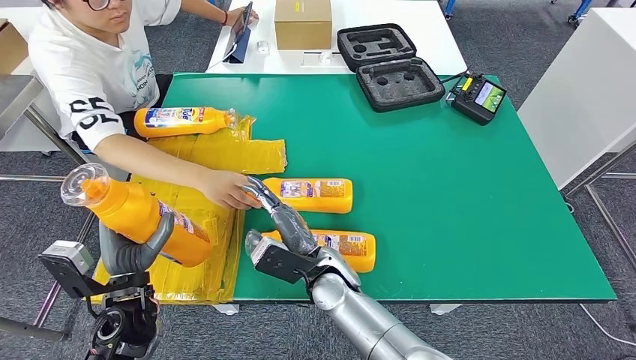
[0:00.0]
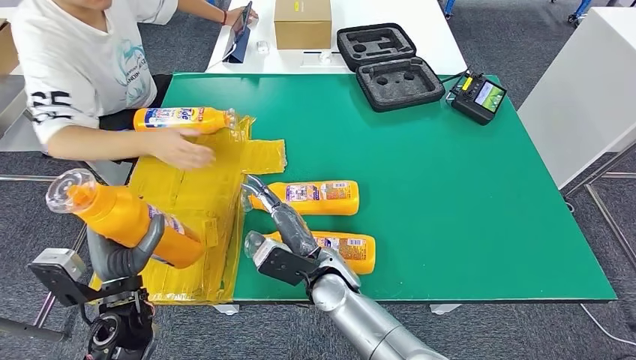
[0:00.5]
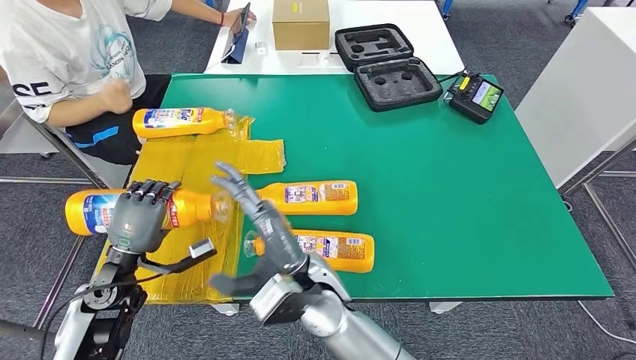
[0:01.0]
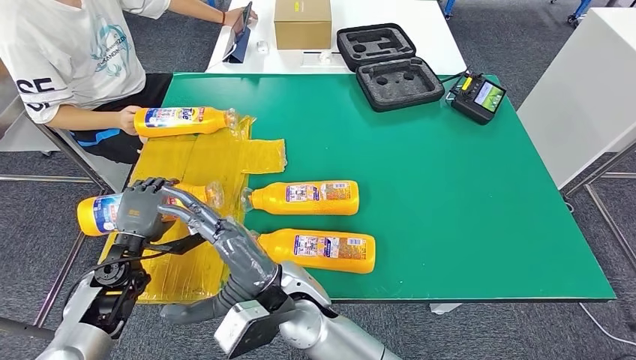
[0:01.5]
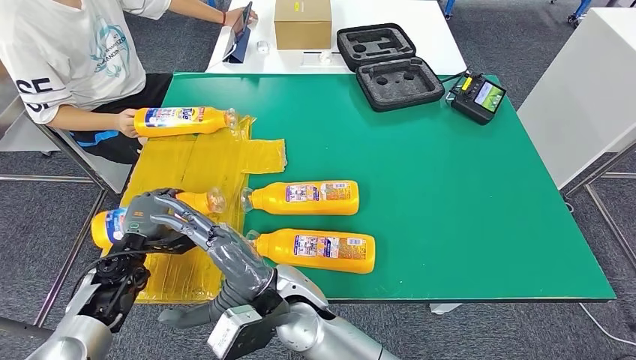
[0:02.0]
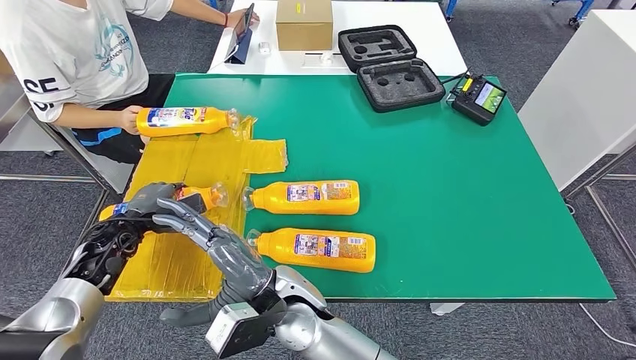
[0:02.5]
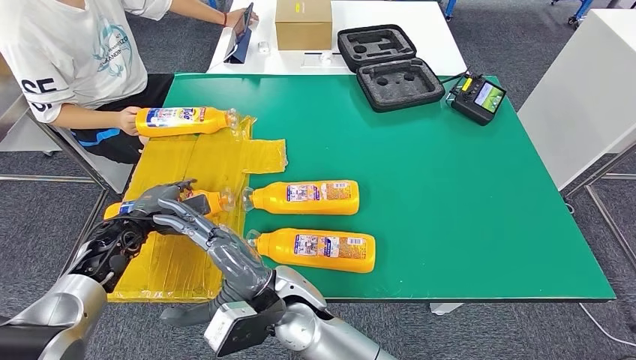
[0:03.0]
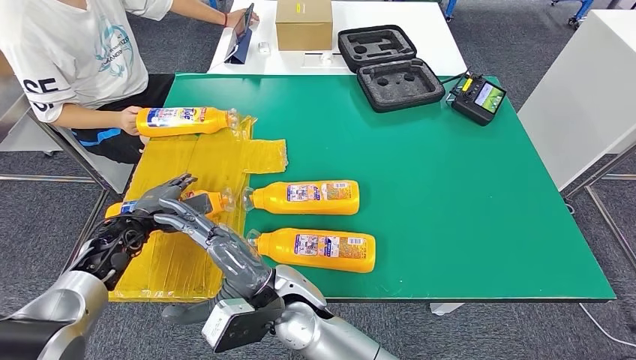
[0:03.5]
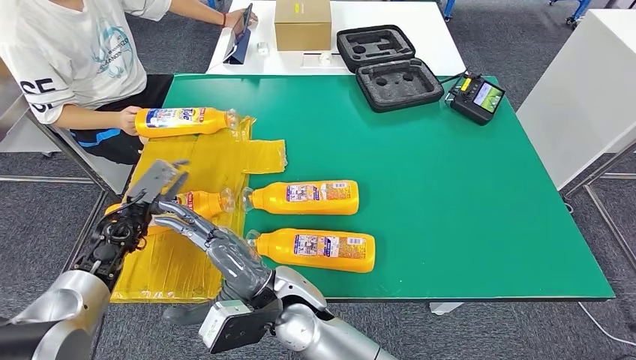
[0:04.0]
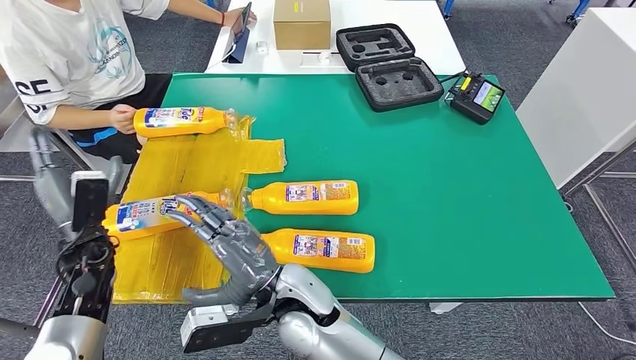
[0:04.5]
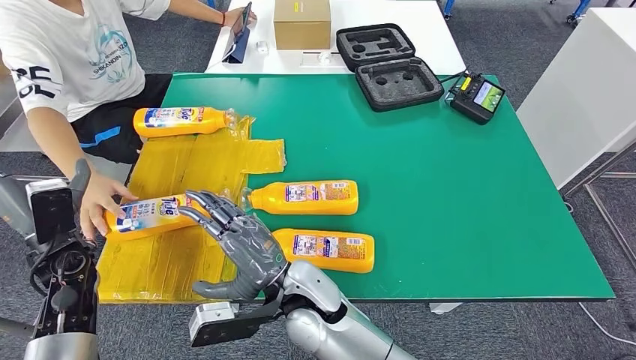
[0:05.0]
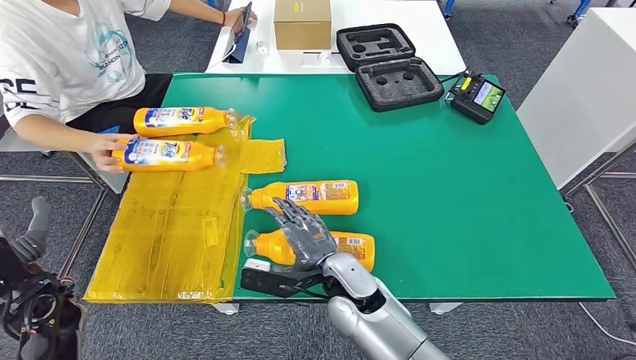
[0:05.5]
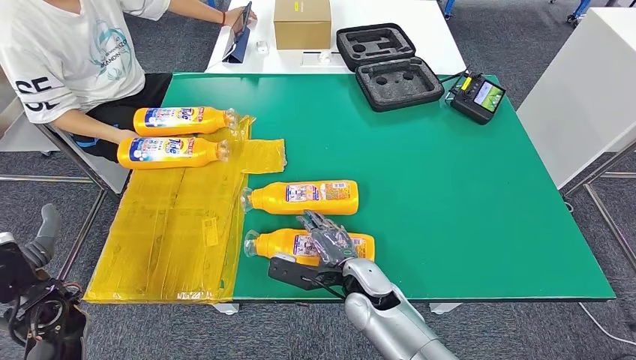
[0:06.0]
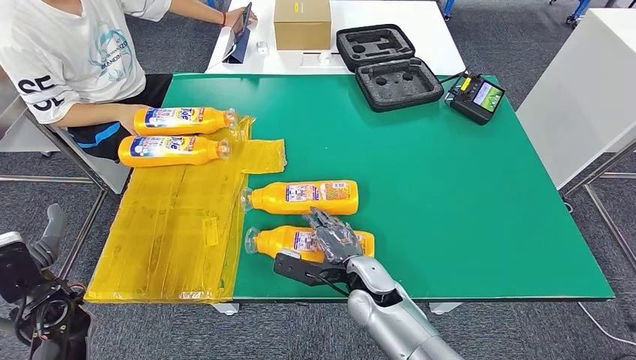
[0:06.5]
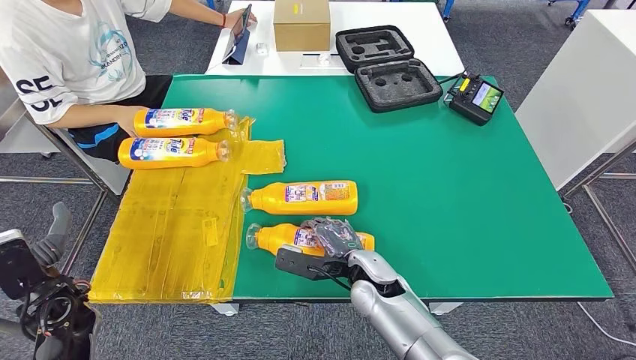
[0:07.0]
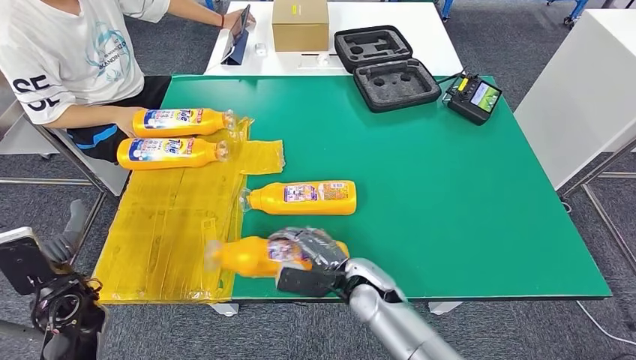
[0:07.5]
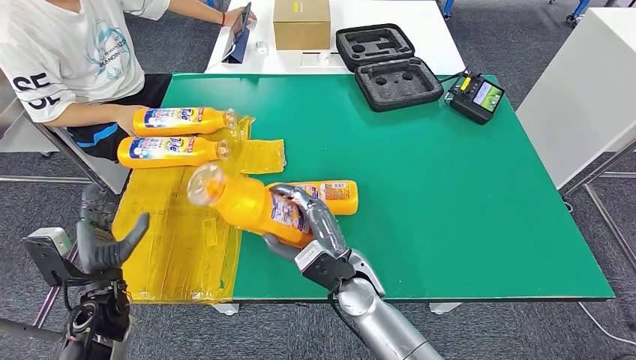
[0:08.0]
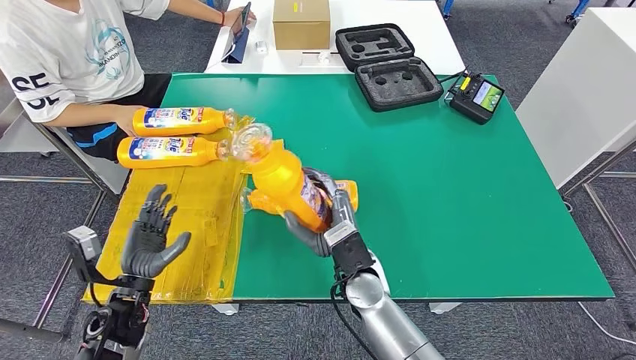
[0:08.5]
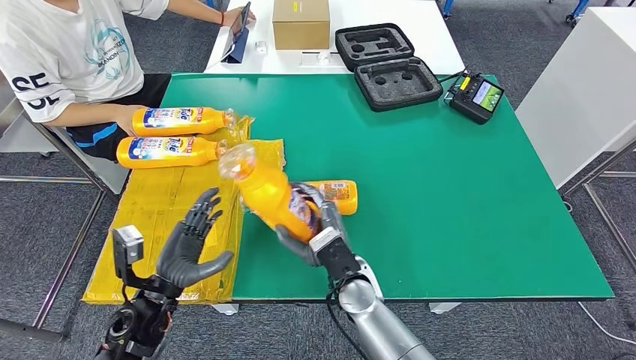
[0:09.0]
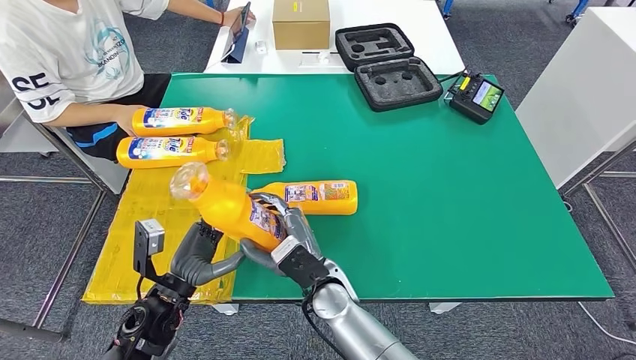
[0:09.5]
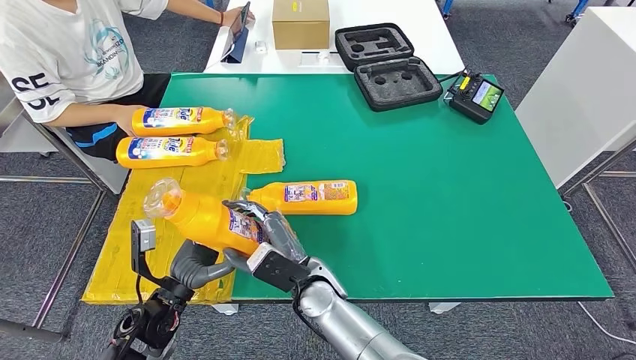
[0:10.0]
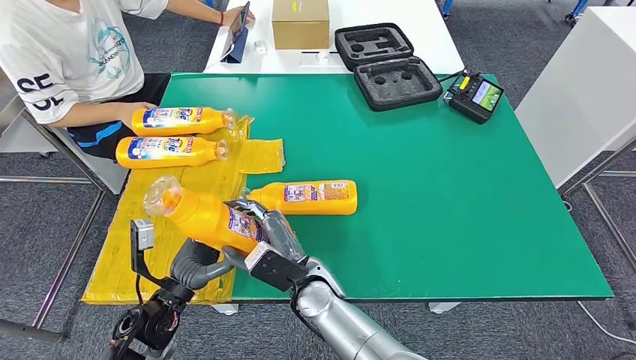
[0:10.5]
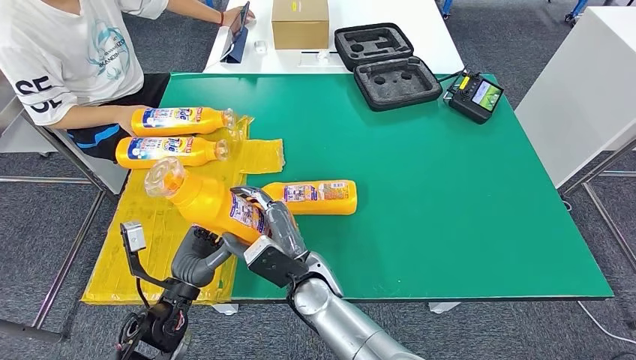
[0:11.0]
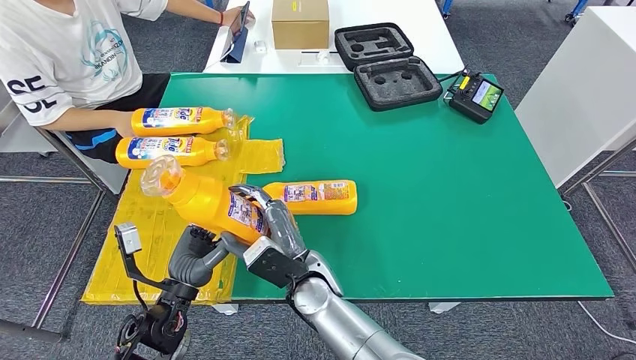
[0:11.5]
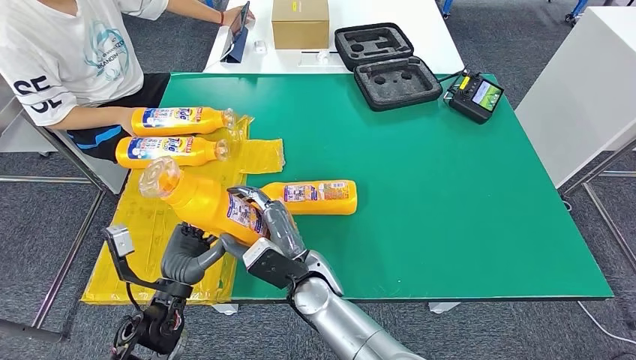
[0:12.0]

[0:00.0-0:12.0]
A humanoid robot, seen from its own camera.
Step, 0:00.0 to 0:04.0: Flip the fast-moving consumer goods bottle to the front side.
Step, 0:07.5 to 0:11.0: Pick up the fast-moving consumer goods bottle from the table.
0:02.0 to 0:04.0: The left hand heads forward, covering roughly 5 cm.
0:06.0 to 0:08.0: The left hand shifts roughly 5 cm to the right.
0:08.0 to 0:10.0: The right hand shifts roughly 10 cm to the left, while the left hand moves to the right, some 10 cm.
0:10.0 to 0:12.0: There are only small adjustments of the hands.

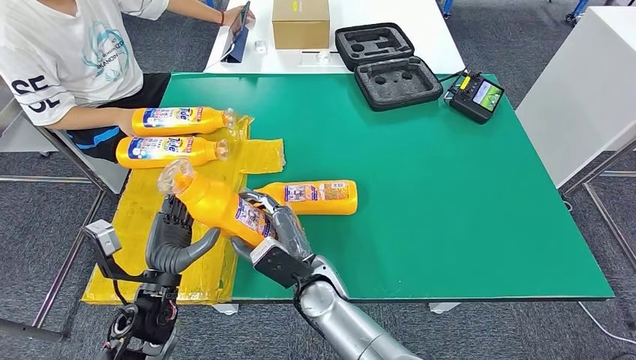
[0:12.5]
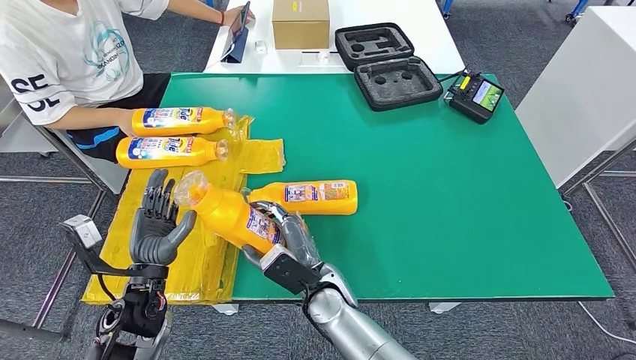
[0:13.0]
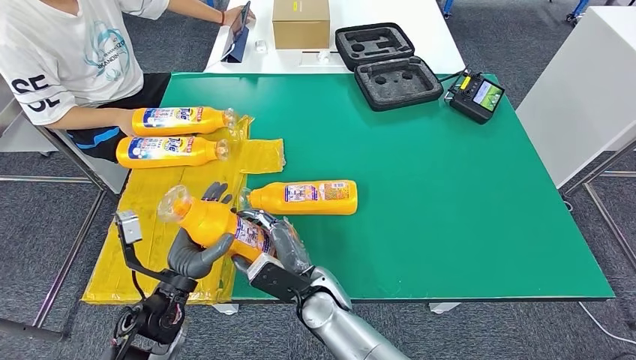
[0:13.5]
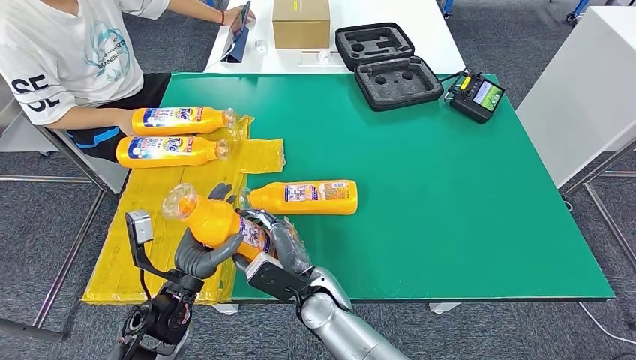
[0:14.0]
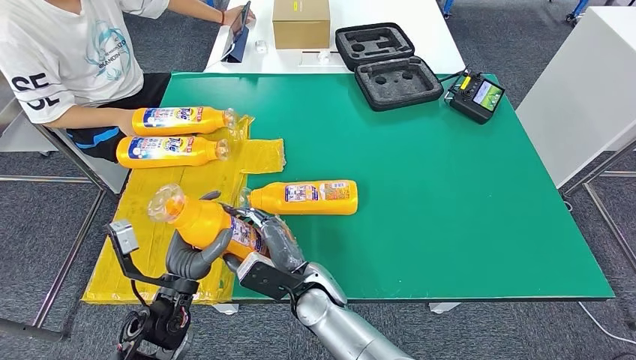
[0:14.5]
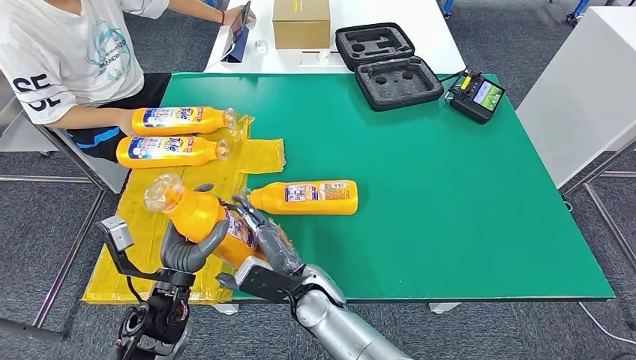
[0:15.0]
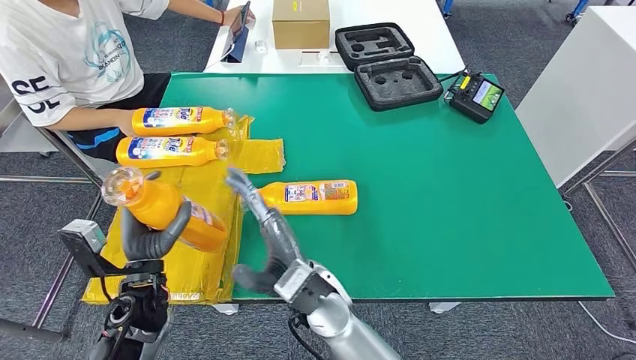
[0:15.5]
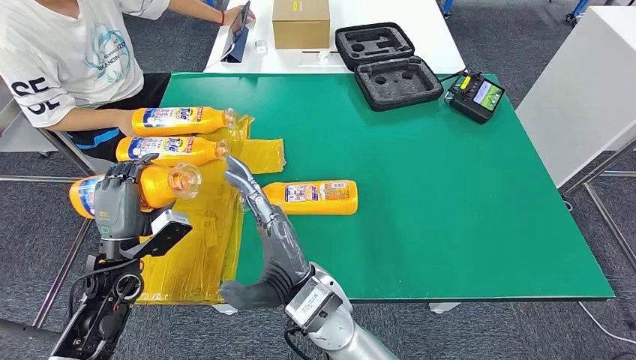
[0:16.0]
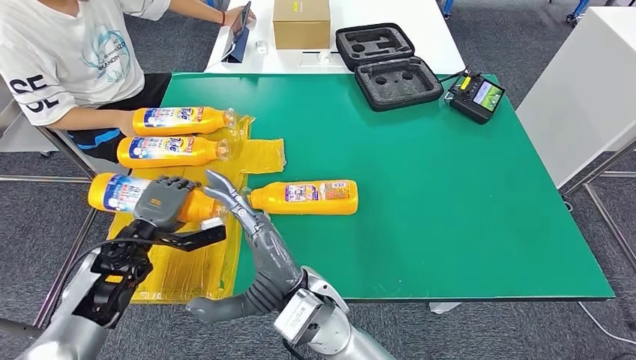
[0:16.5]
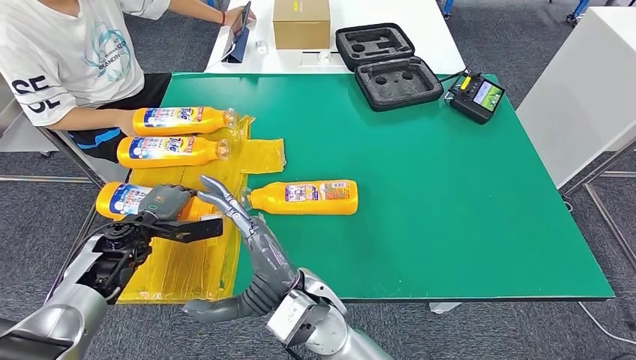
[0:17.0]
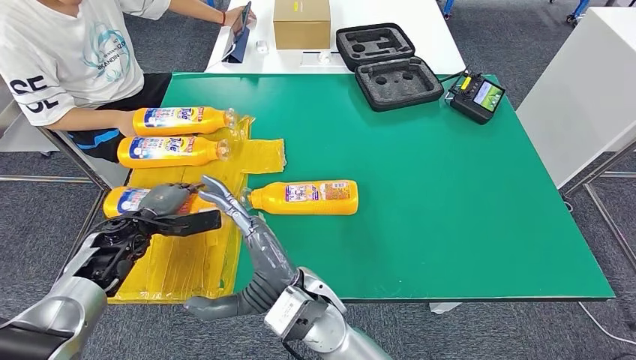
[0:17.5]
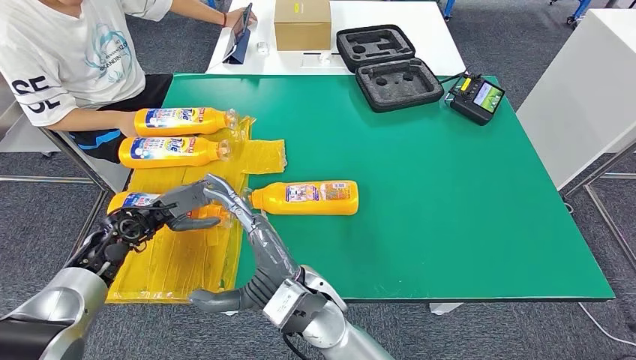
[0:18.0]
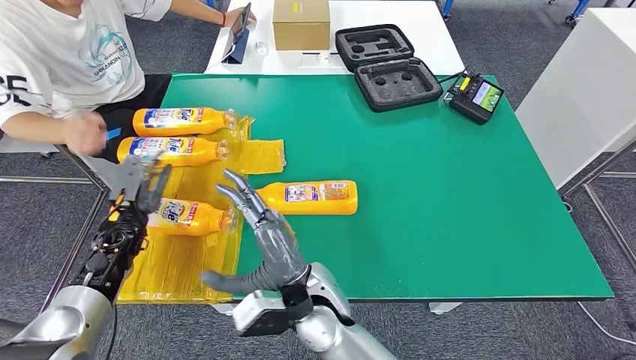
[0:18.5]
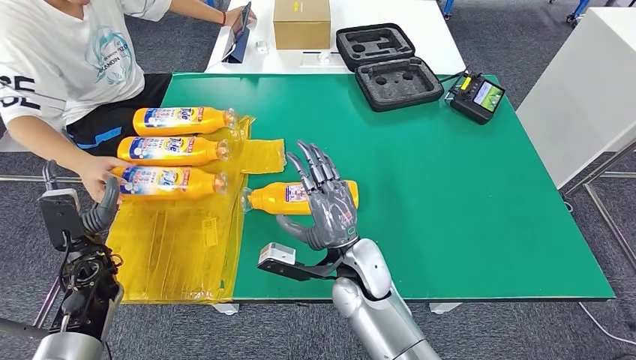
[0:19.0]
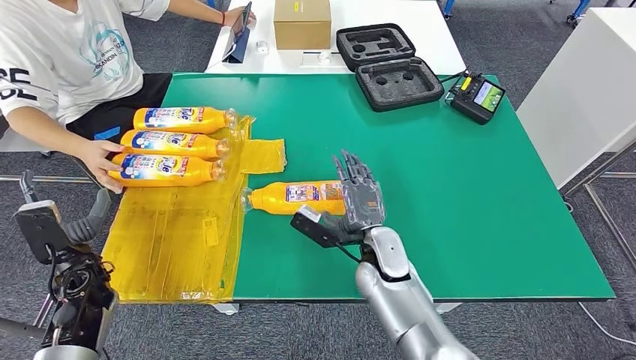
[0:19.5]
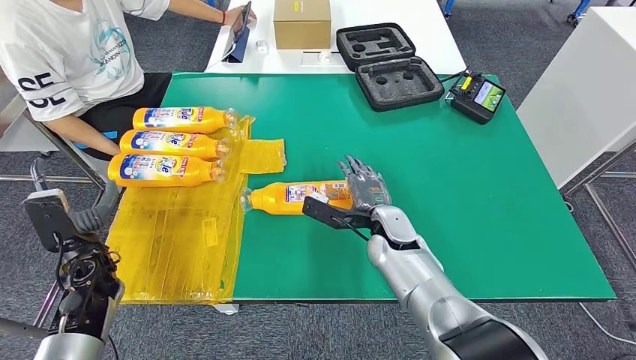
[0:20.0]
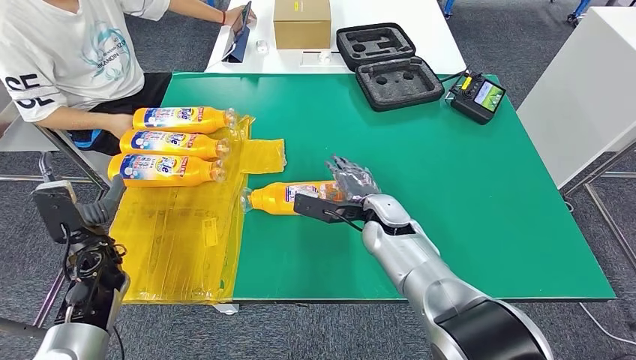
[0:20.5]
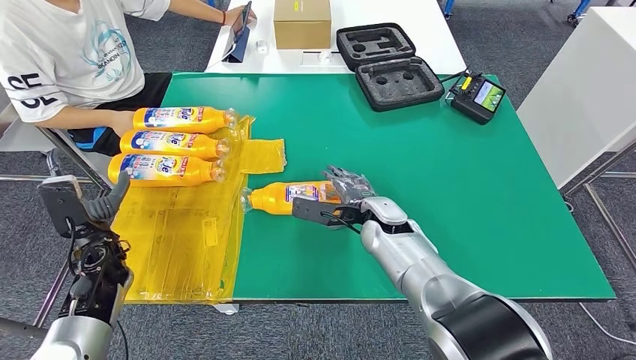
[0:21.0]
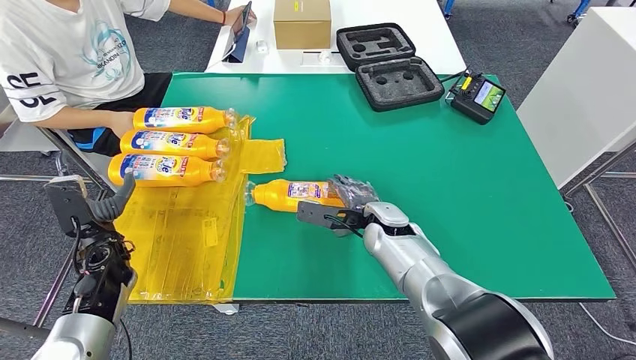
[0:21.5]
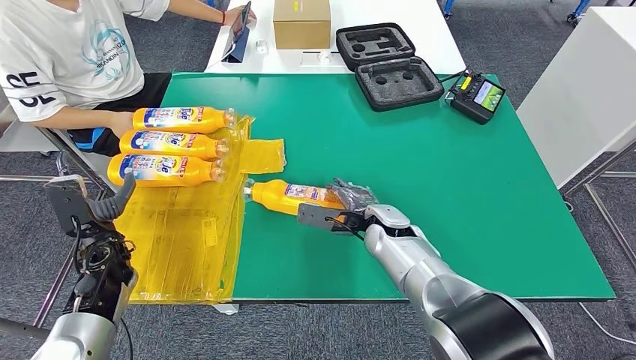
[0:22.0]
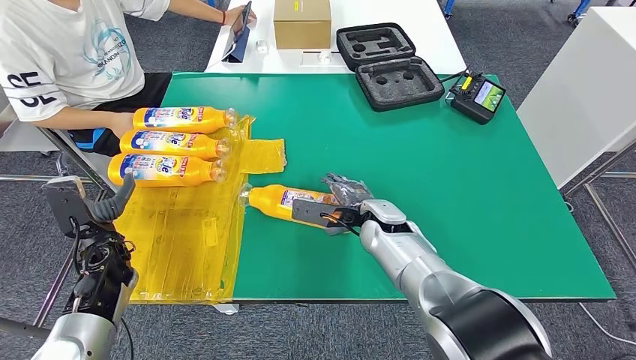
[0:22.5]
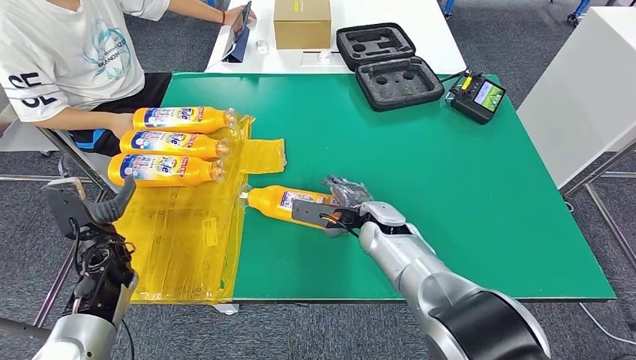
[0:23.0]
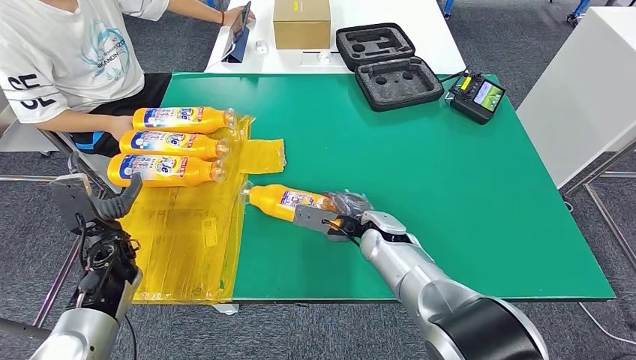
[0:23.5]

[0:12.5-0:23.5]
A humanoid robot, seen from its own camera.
Step, 0:14.5 to 0:18.5: Flip the fast-moving consumer goods bottle to the front side.
0:14.5 to 0:16.0: The right hand moves upward, about 10 cm. Meanwhile the left hand shifts roughly 10 cm to the left and forward.
0:16.0 to 0:18.0: The left hand goes roughly 10 cm forward.
0:21.5 to 0:23.5: There are only small adjustments of the hands.
